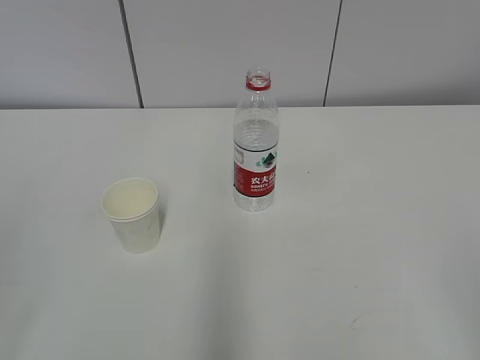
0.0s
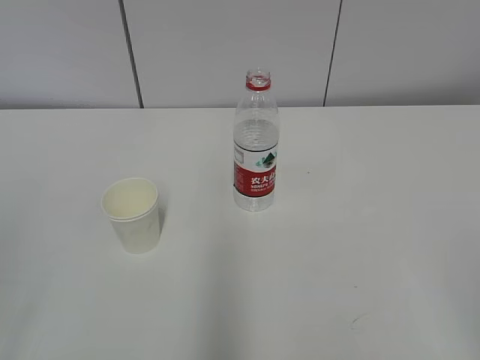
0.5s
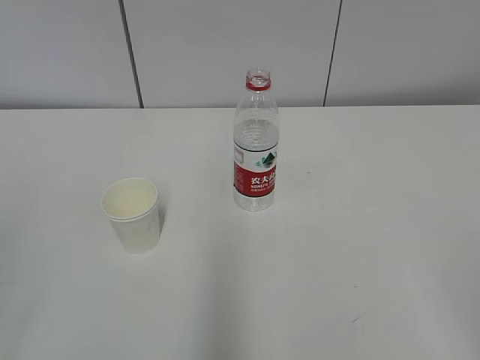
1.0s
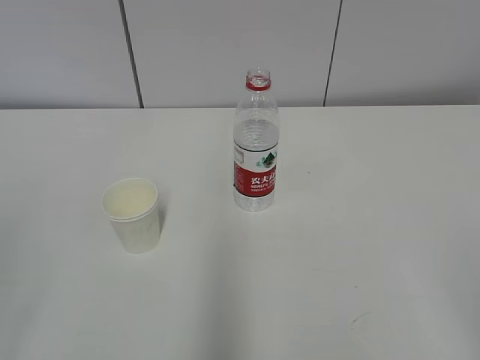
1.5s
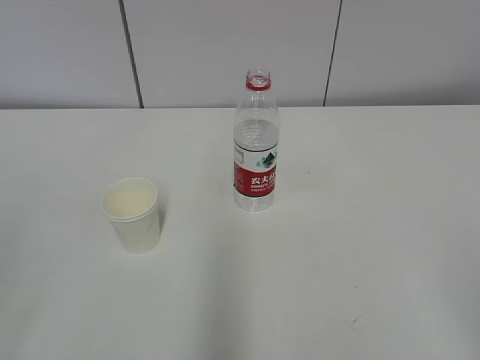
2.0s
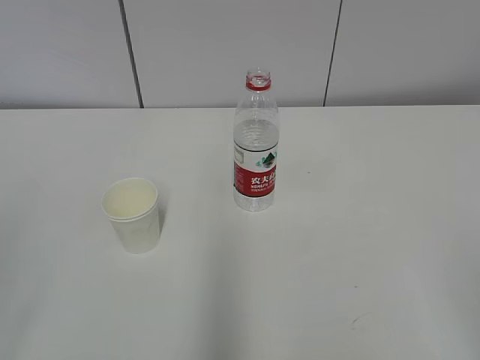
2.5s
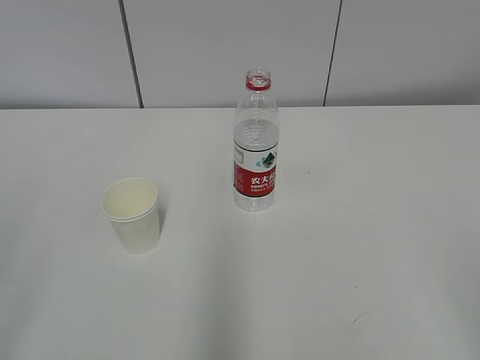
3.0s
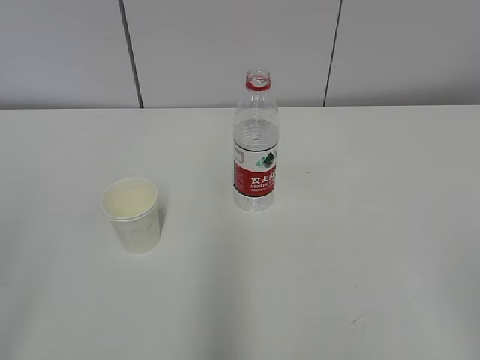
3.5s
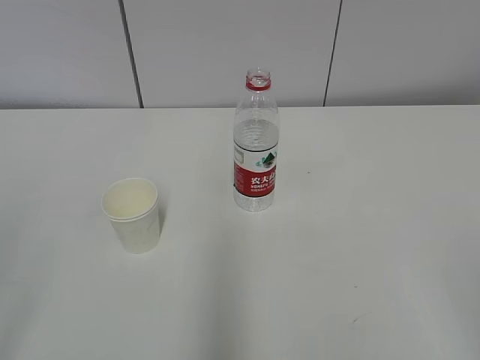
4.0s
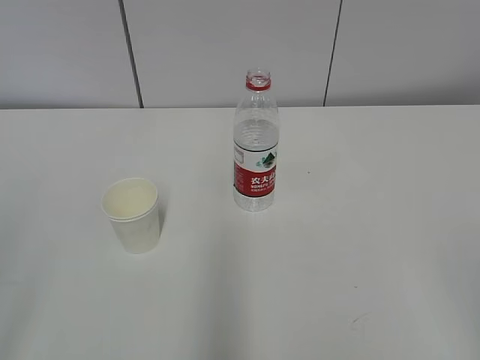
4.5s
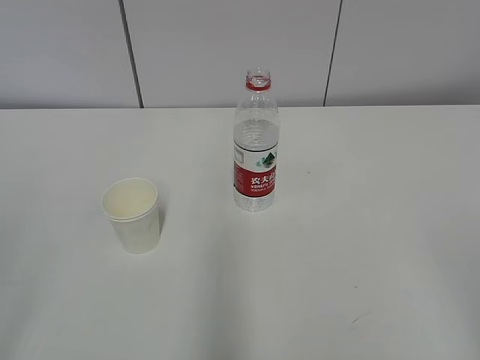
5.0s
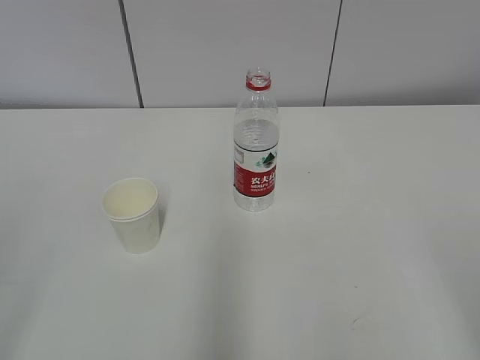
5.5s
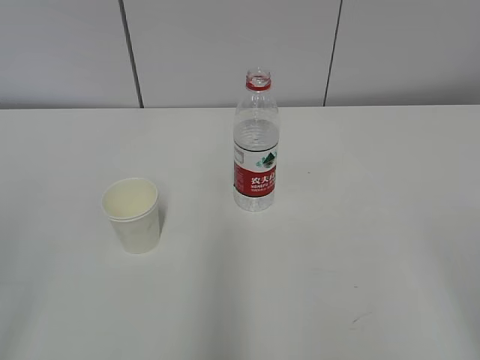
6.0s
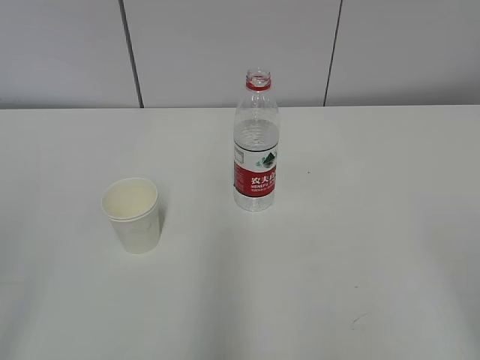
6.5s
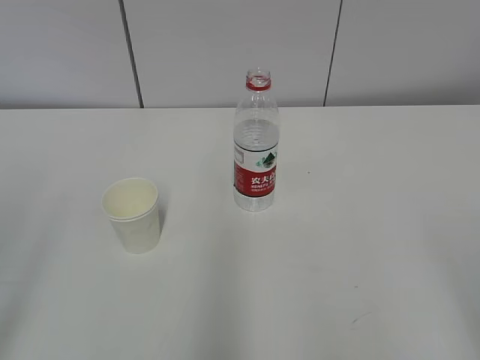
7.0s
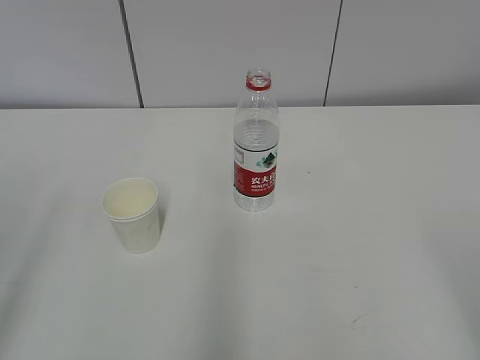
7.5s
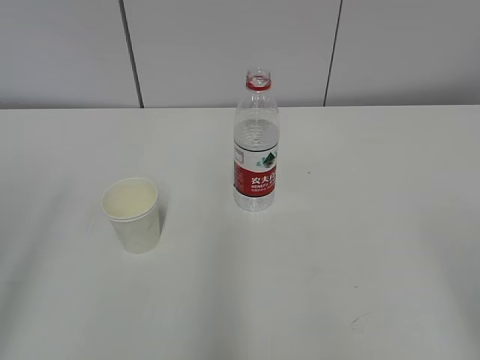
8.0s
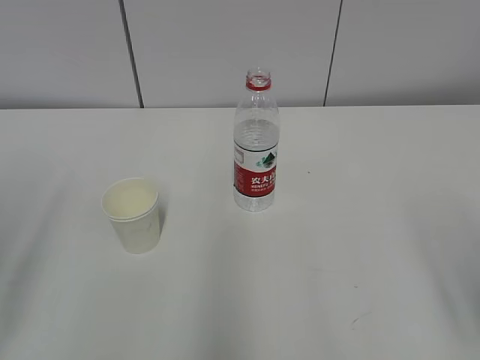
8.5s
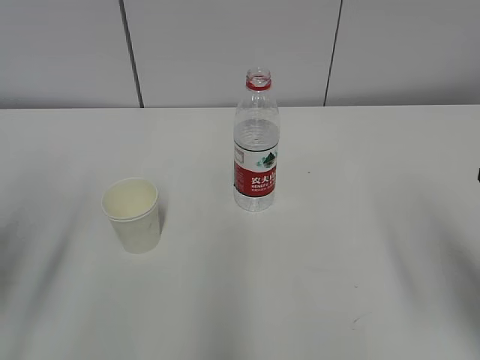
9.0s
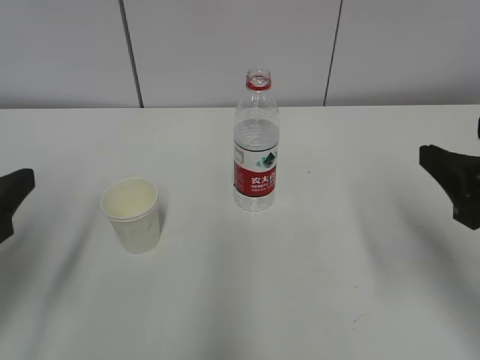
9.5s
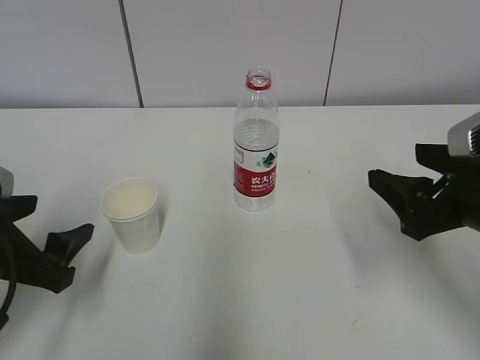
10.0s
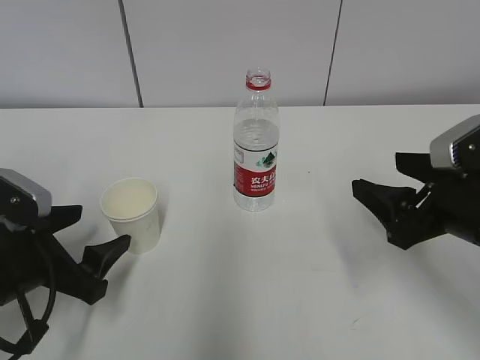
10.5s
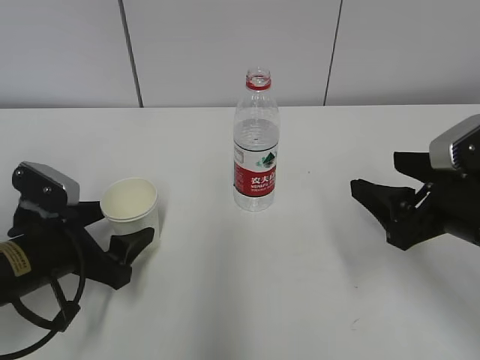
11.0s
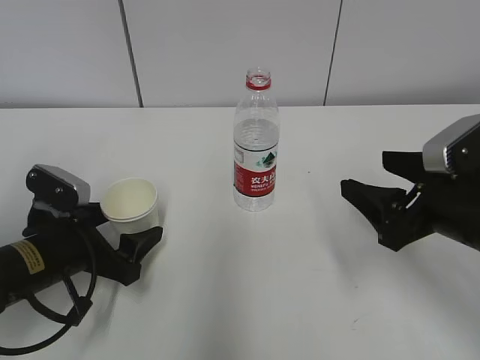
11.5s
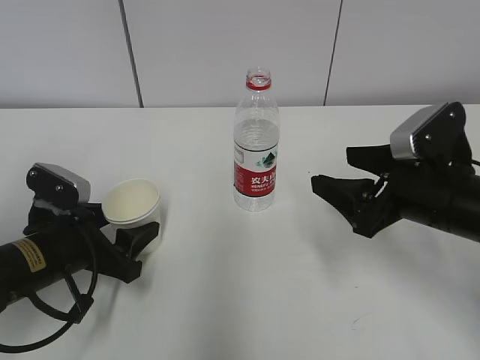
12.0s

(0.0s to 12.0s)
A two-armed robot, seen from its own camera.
8.0s - 10.0s: The left gripper shifts roughly 20 cm downward, forward and to the right, while the right gripper travels forward by approximately 20 cm.
10.0s - 12.0s: The left gripper goes roughly 10 cm downward and forward, while the right gripper changes place by roughly 5 cm.

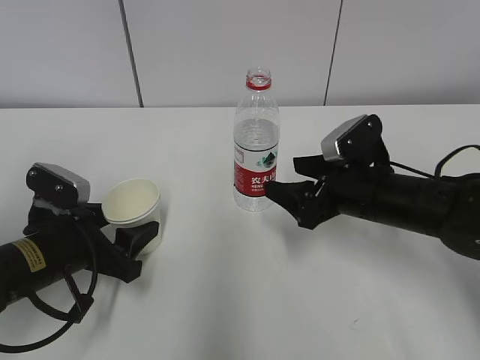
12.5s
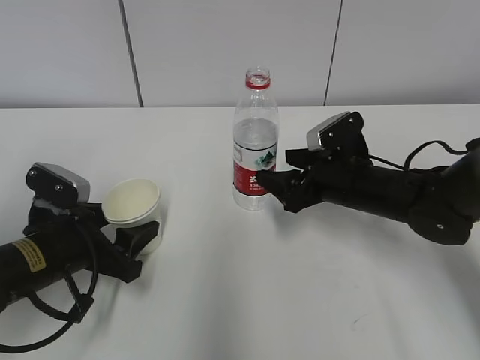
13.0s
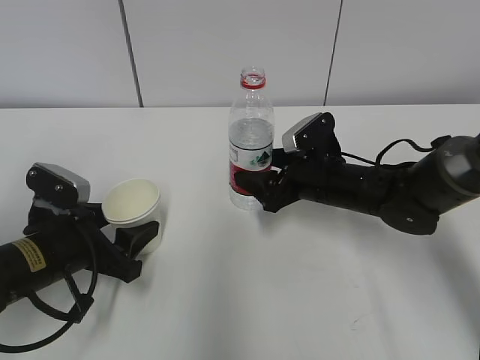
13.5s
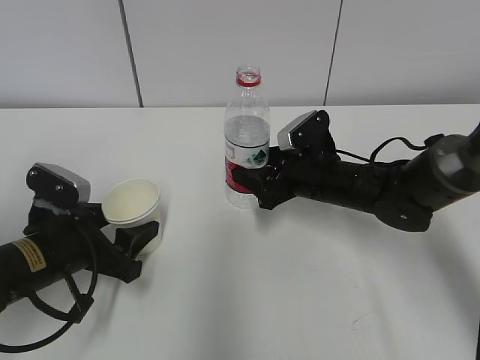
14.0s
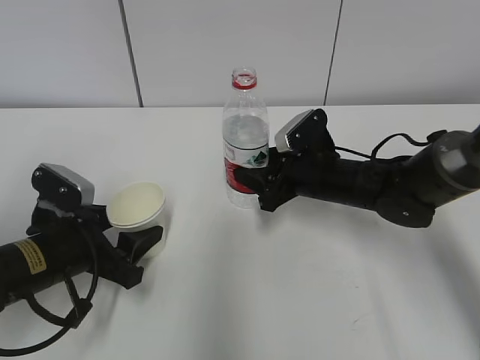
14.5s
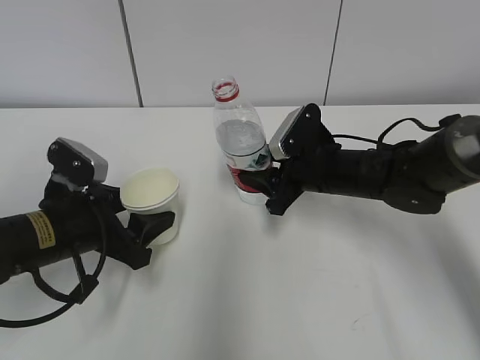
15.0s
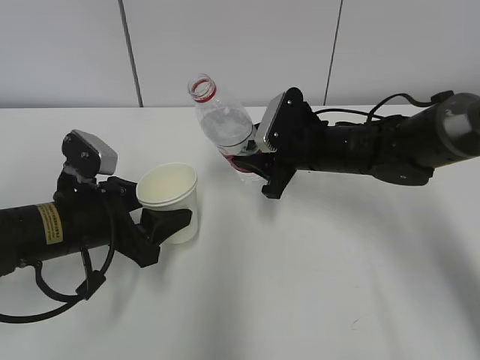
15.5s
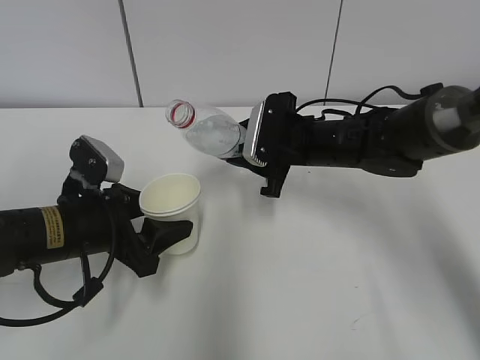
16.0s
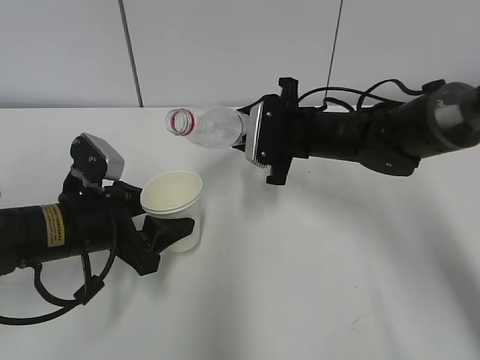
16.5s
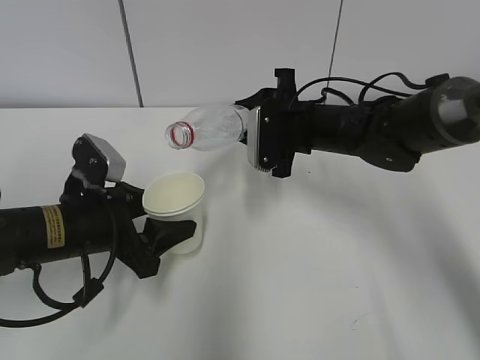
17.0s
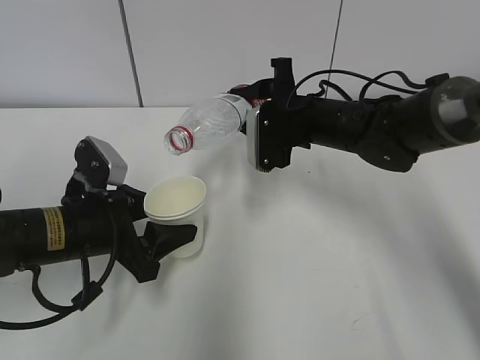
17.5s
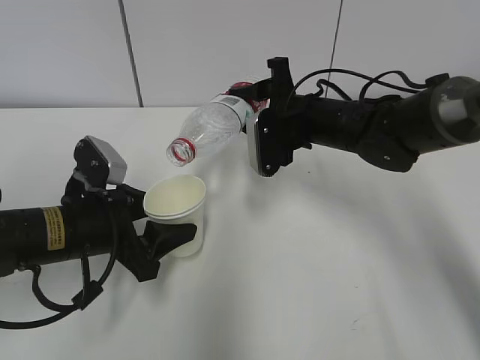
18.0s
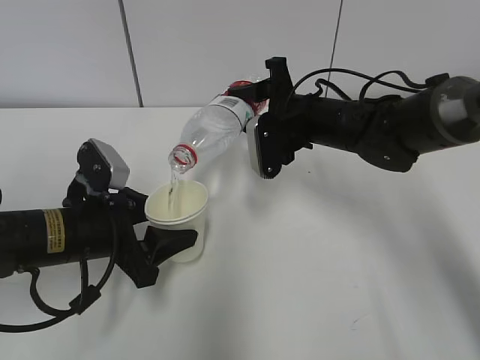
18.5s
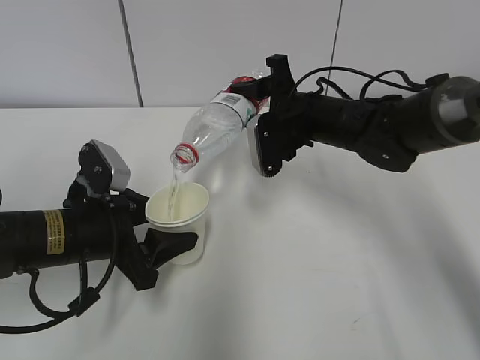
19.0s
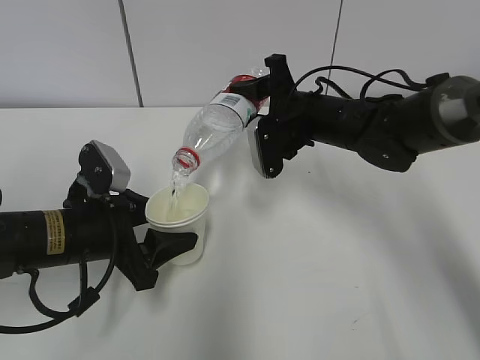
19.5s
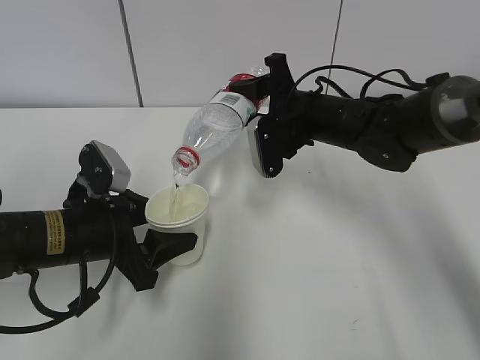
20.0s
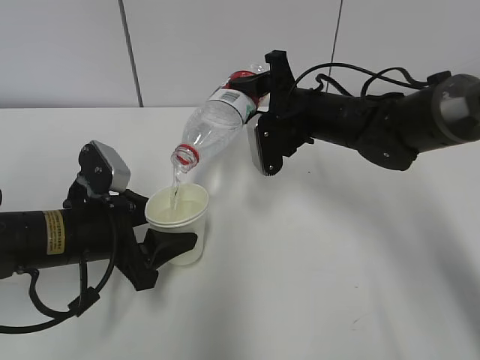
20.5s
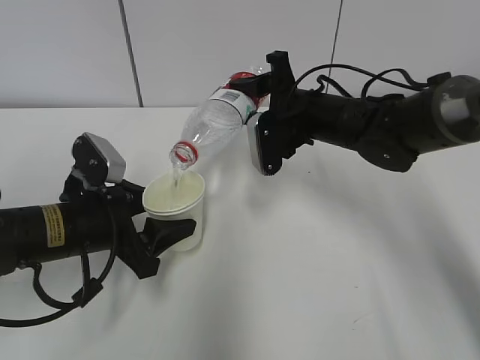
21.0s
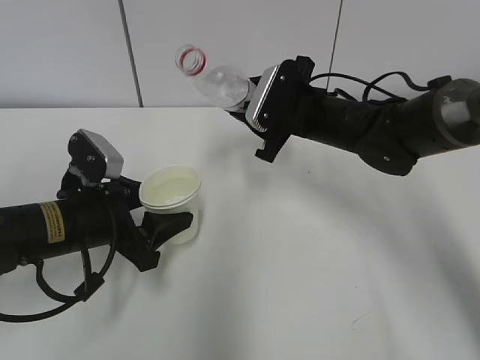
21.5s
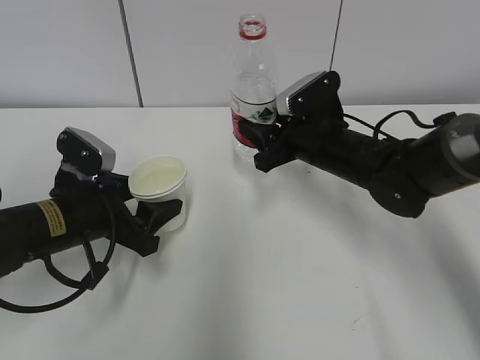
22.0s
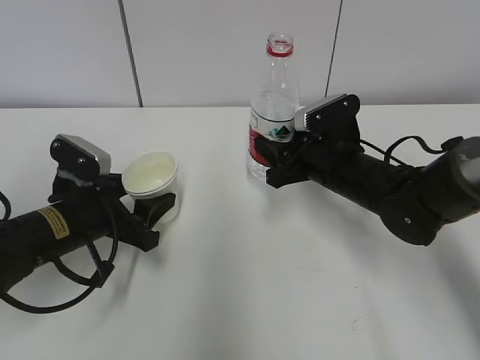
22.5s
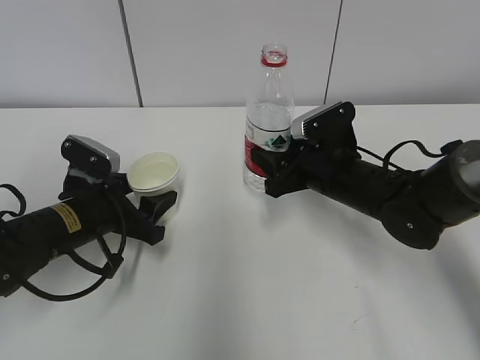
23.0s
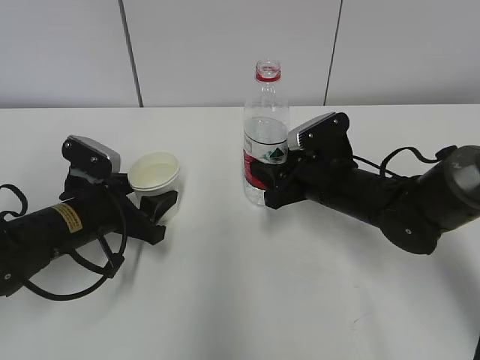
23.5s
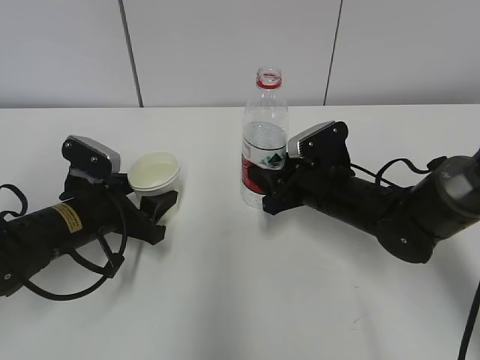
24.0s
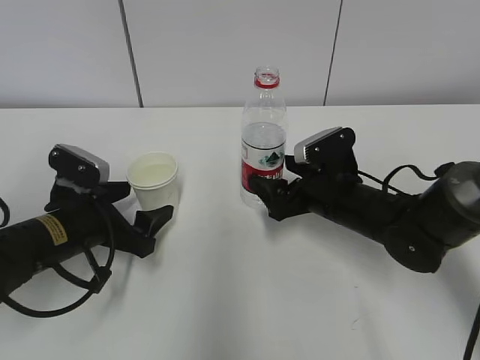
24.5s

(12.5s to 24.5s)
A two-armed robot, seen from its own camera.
Step, 12.5s - 15.0s: Lift the paper cup with the left hand.
Step, 15.5s - 17.5s: Fill water with the left hand.
Step, 15.5s - 17.5s: Pour water with the right hand.
Step, 18.5s - 20.0s: Place the paper cup with the left hand.
12.5s - 14.5s: The right gripper is displaced forward by roughly 5 cm, and closes.
14.5s - 16.5s: The right gripper moves upward, about 5 cm.
18.5s - 20.5s: The grippers make only small movements.
20.5s - 22.5s: The right gripper moves downward, roughly 5 cm.
22.5s - 24.5s: The right gripper opens its fingers. Meanwhile the left gripper opens up.

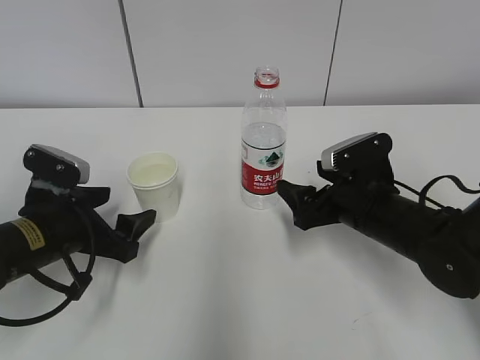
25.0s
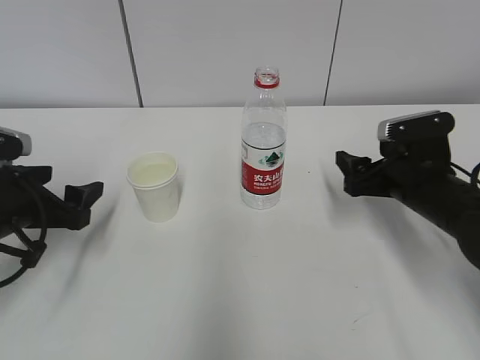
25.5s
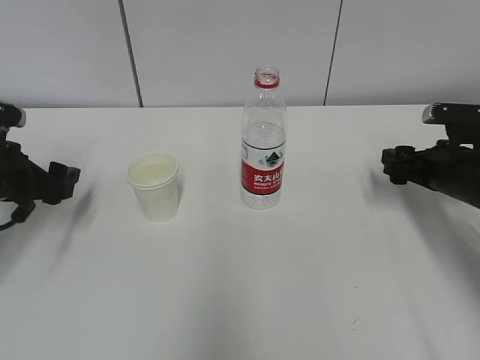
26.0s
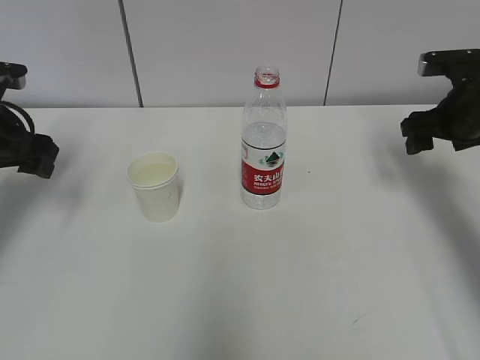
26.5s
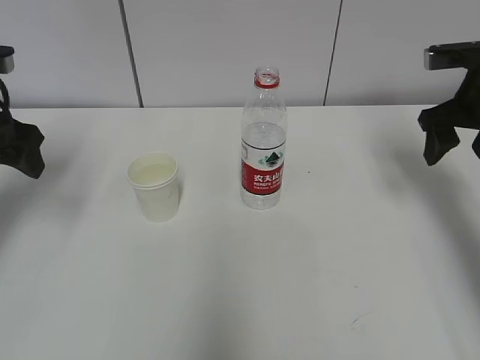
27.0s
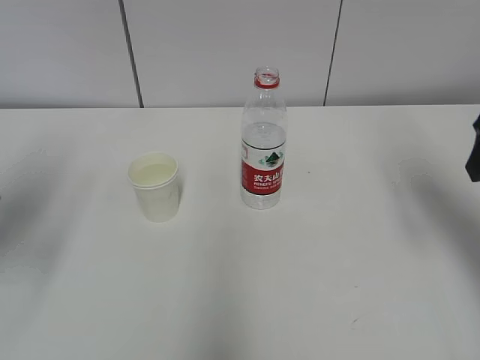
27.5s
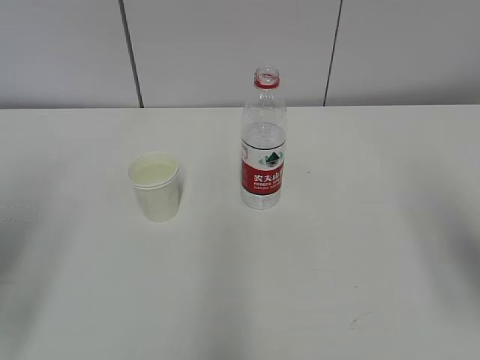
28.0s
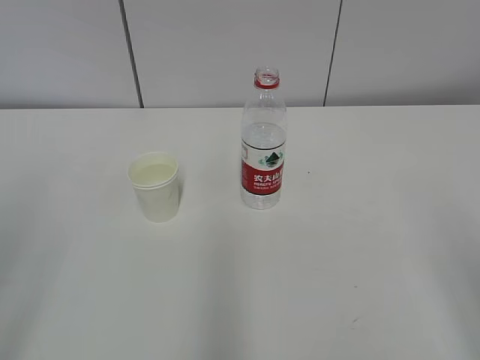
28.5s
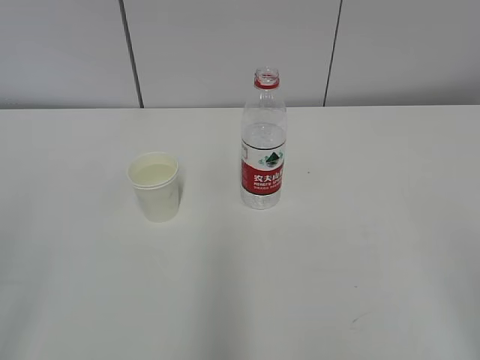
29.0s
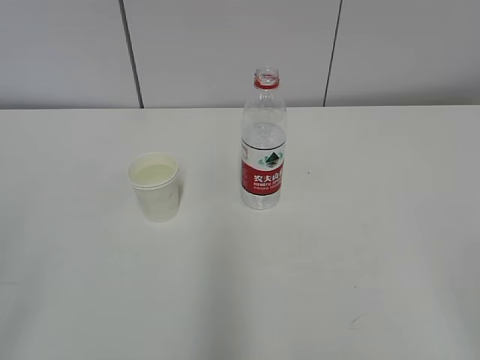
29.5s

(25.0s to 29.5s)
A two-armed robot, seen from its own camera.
25.0s - 27.0s: The left gripper moves upward, to the left and forward, approximately 20 cm. The right gripper heads upward, to the right and forward, covering some 20 cm.
27.0s - 29.5s: The two grippers go roughly 35 cm backward.
